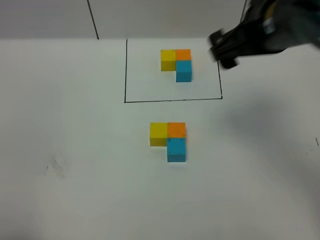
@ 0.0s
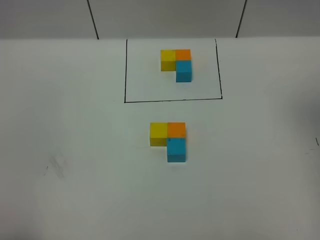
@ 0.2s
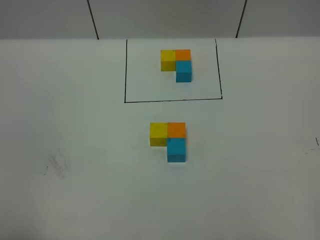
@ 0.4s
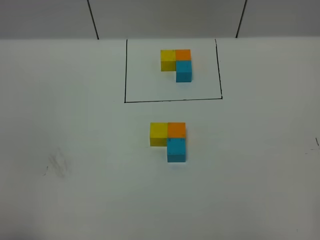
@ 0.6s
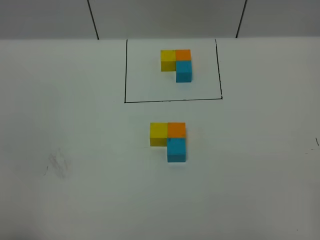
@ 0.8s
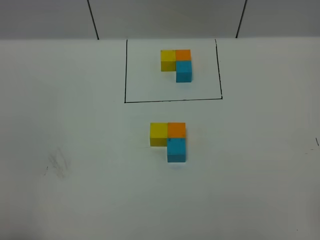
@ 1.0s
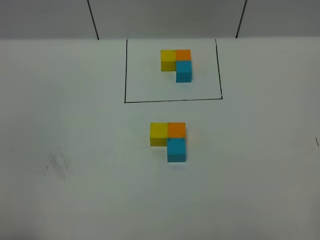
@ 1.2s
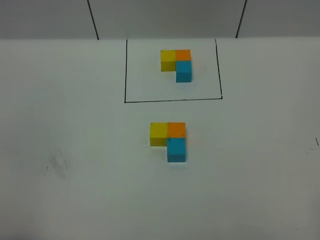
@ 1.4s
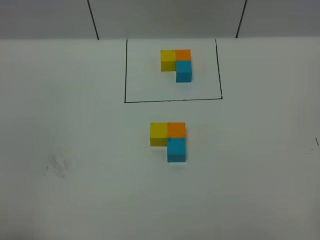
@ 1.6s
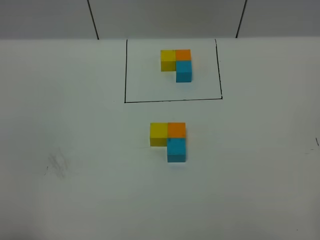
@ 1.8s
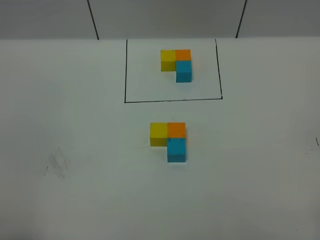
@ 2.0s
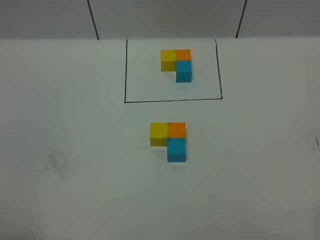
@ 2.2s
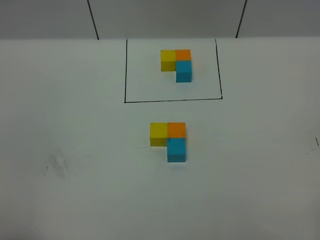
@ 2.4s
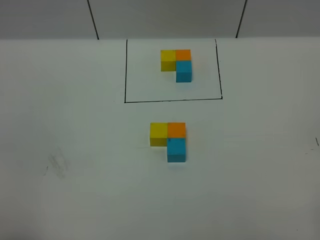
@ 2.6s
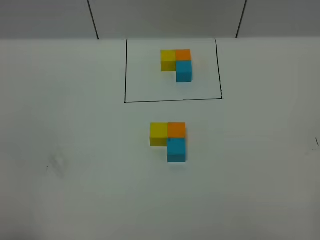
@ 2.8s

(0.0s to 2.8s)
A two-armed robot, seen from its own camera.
Task of the whole recording: According to the building block template in front, assemble the scattered blocks together.
0.0s - 1.4s: The right gripper shifts approximately 35 cm backward and to the right.

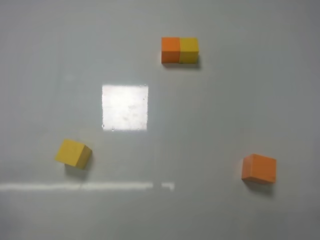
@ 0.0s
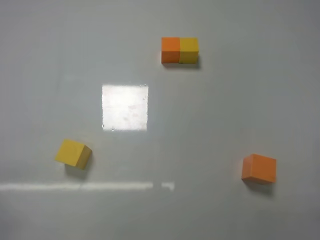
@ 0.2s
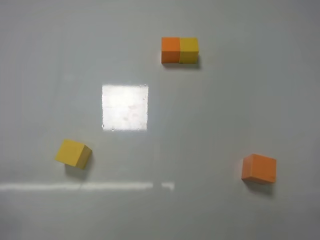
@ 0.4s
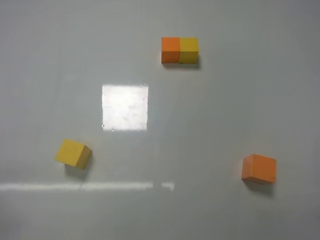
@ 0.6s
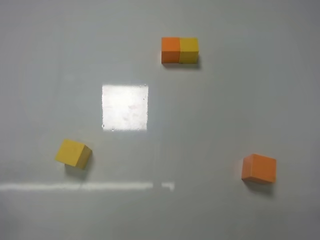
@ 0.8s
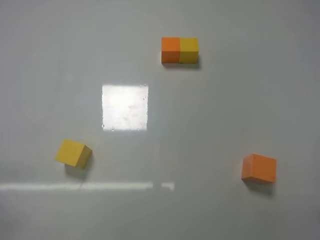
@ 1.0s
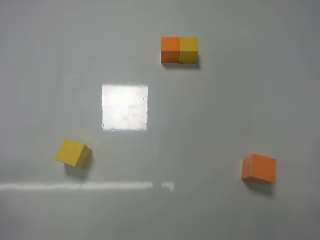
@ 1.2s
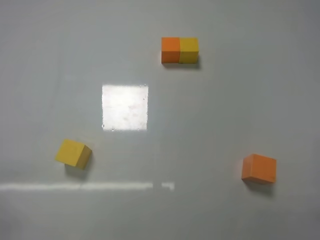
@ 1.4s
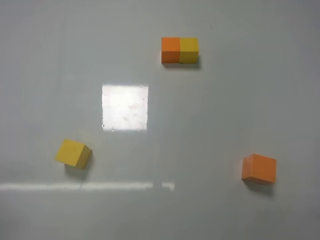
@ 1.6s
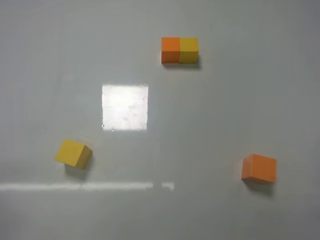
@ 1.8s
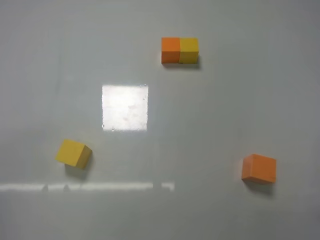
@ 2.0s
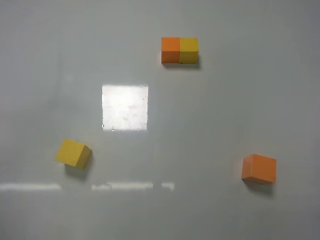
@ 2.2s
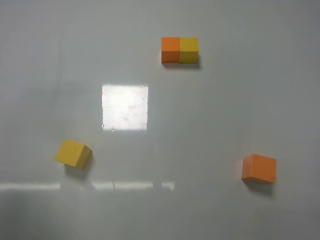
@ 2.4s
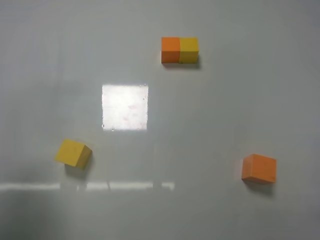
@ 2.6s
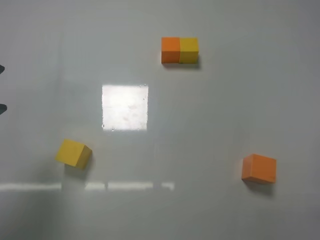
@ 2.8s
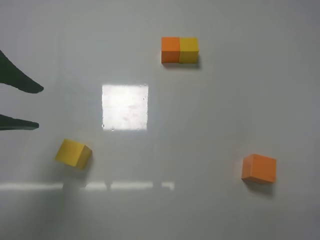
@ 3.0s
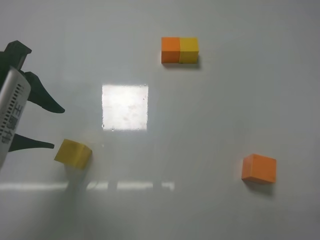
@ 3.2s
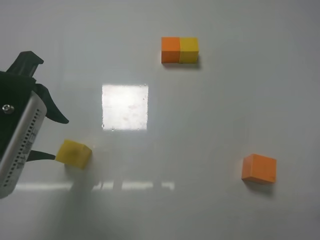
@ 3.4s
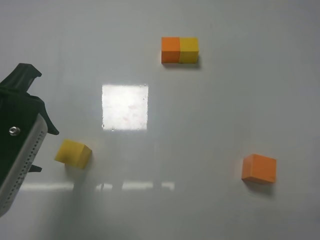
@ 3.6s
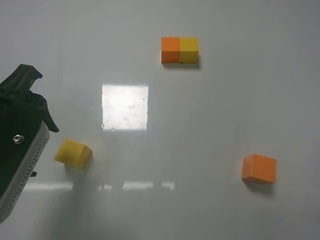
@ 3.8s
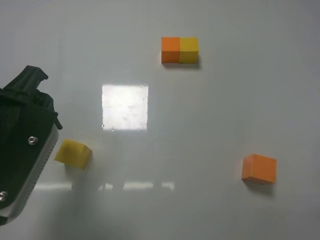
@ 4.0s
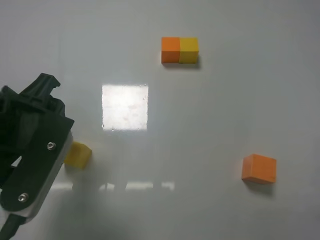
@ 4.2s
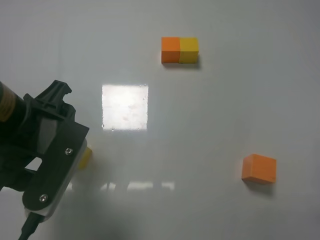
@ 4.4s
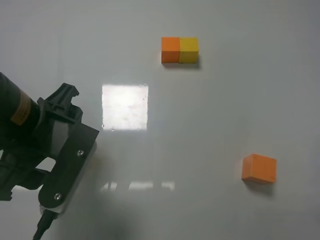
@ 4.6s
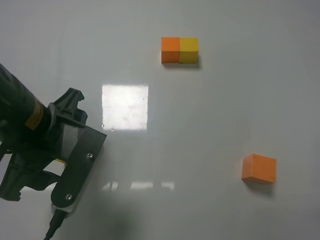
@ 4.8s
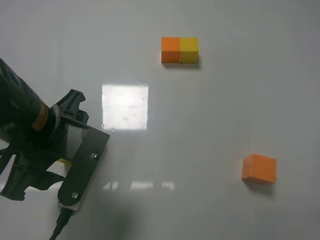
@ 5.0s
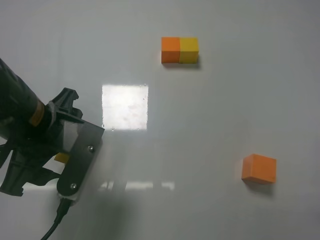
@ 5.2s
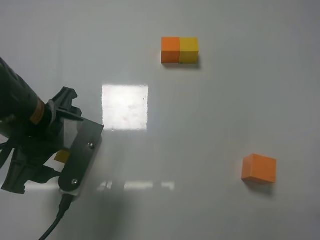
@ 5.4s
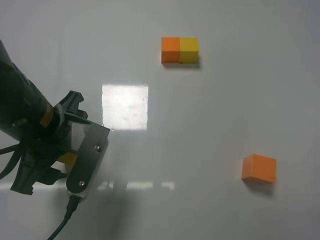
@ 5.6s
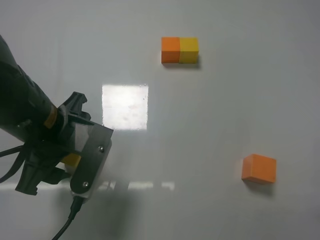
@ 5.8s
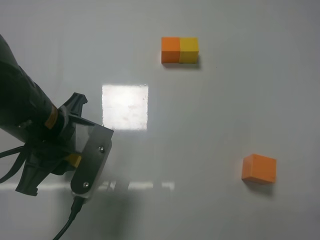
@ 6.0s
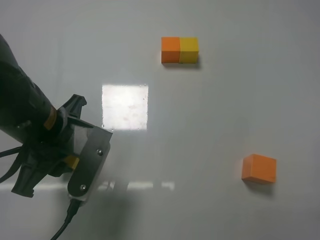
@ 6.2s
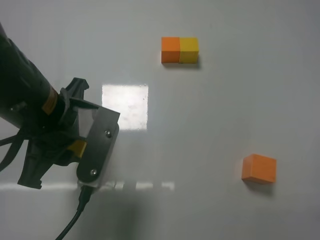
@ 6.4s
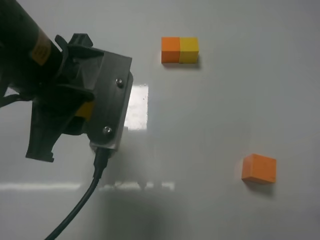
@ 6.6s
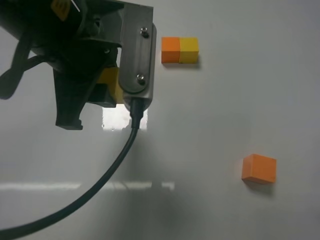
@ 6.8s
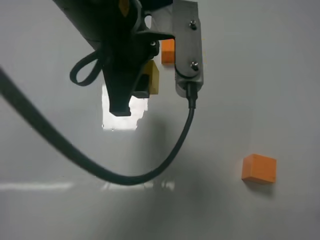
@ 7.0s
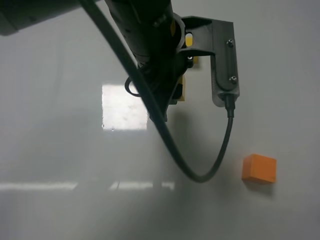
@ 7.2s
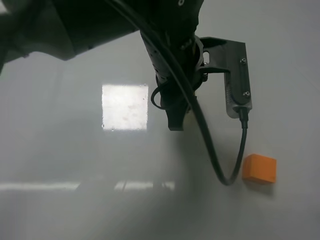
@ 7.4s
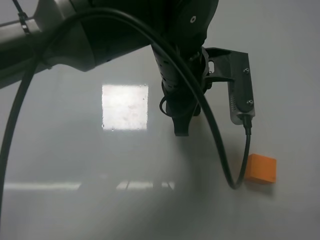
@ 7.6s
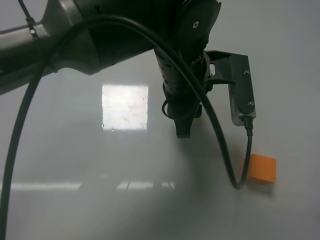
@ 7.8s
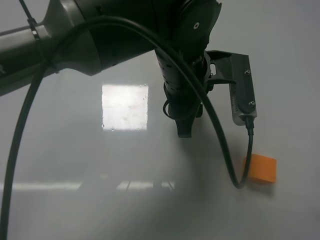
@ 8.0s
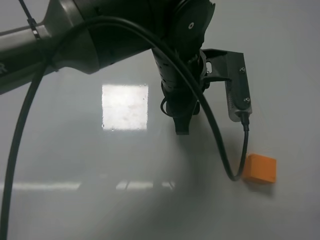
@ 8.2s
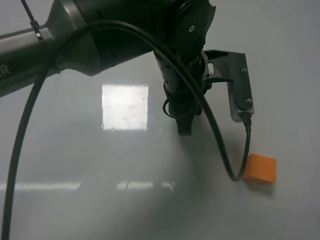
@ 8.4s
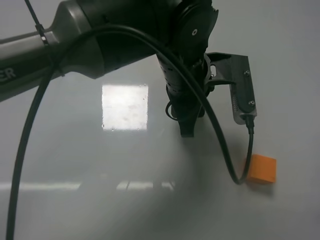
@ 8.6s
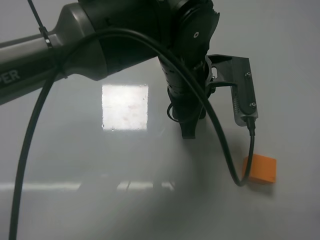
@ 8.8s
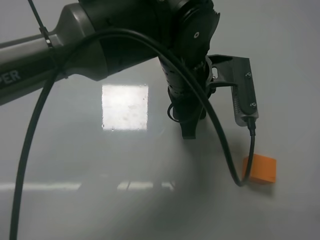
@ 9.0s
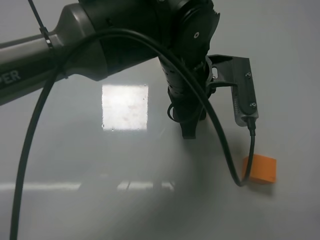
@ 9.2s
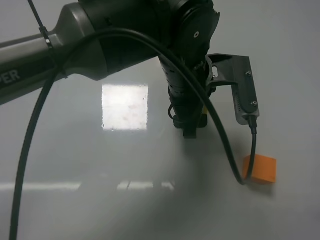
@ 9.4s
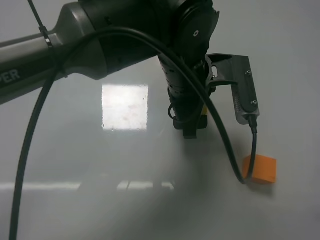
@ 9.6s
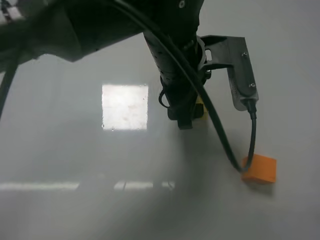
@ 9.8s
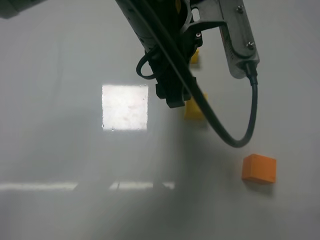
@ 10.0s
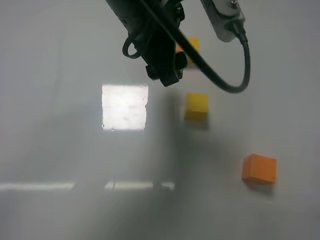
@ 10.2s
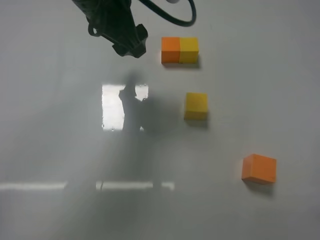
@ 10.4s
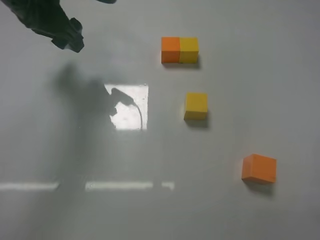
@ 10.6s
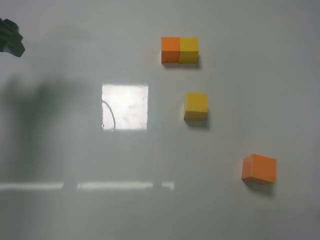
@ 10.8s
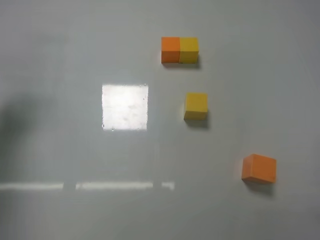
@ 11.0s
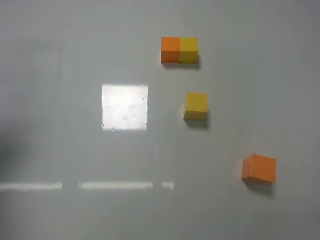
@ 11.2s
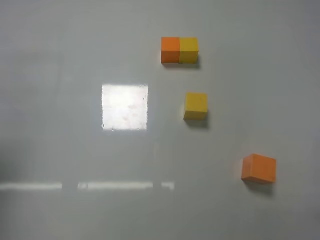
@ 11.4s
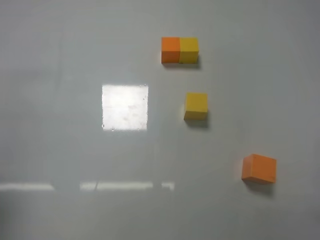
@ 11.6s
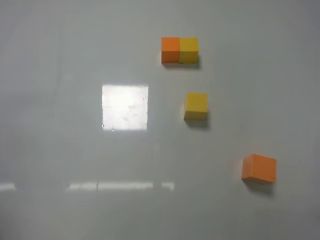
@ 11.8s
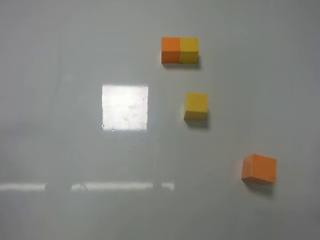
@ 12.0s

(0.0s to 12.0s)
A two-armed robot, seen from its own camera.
Task of the whole recording: According to the building block template in front, assemble the scattered blocks together.
Step, 0.0s - 6.0s: Grasp the yellow block with left gripper.
Step, 6.2s - 9.8s: Adjust the position of the cube with the left gripper.
0.0s - 1.6s: Both grippers stay put.
1.6s - 3.0s: The left gripper heads forward, upward and to the right, covering roughly 25 cm.
3.0s - 4.4s: The left gripper travels to the right and downward by approximately 10 cm, and opens.
4.4s - 6.0s: The left gripper changes place by some 5 cm, and closes its fingers.
6.0s - 7.6s: The left gripper heads to the right, covering roughly 20 cm.
7.6s - 9.0s: The grippers make only small movements.
9.0s - 10.4s: The left gripper travels to the left and upward by some 20 cm, and opens.
10.4s - 12.0s: The left gripper moves backward, to the left and downward, roughly 40 cm.

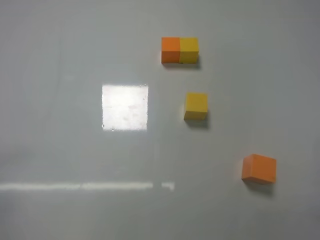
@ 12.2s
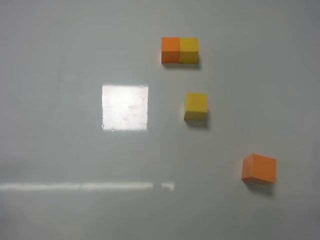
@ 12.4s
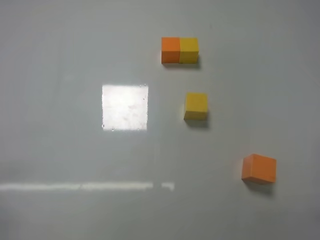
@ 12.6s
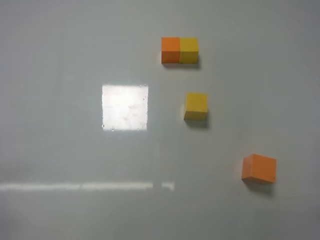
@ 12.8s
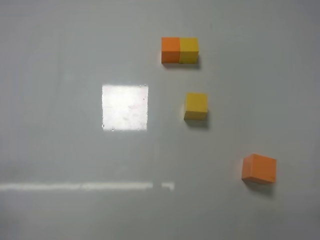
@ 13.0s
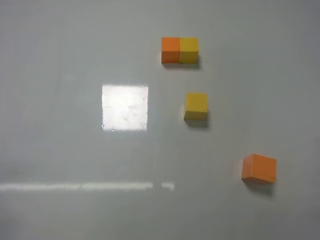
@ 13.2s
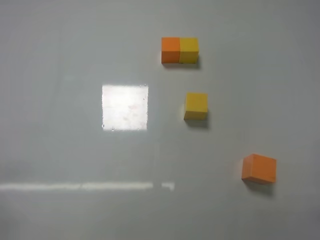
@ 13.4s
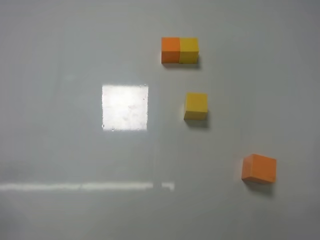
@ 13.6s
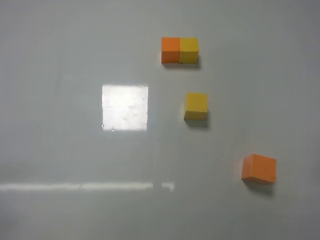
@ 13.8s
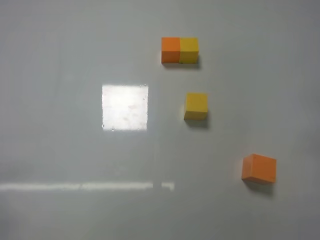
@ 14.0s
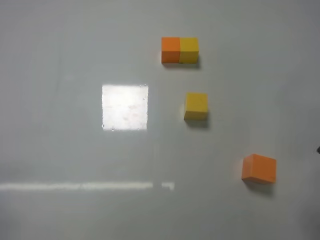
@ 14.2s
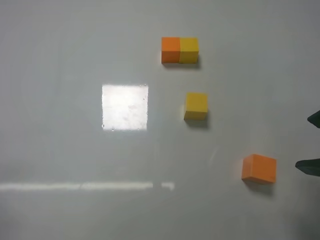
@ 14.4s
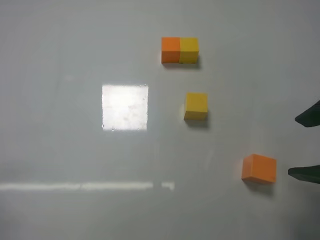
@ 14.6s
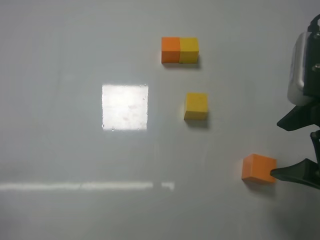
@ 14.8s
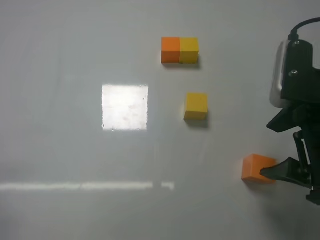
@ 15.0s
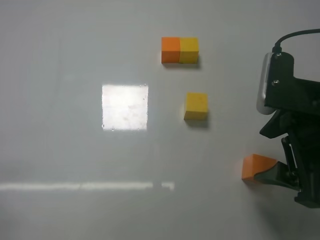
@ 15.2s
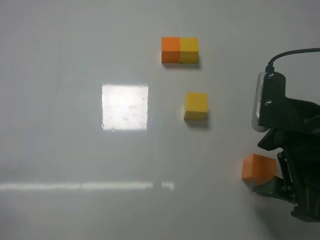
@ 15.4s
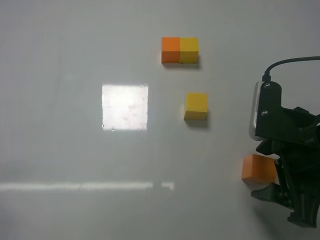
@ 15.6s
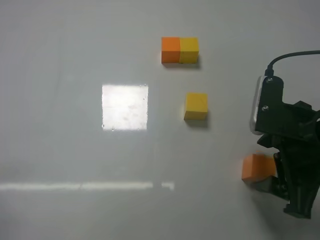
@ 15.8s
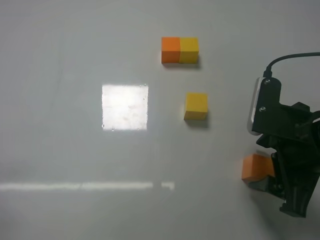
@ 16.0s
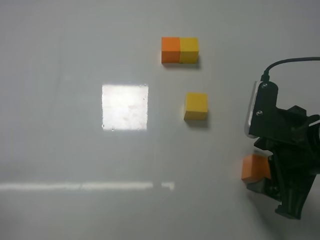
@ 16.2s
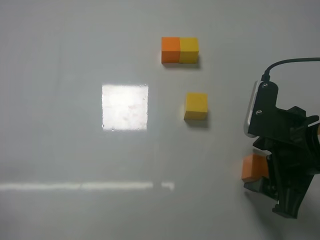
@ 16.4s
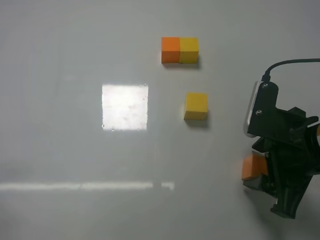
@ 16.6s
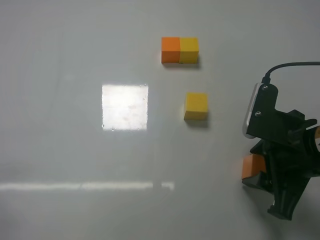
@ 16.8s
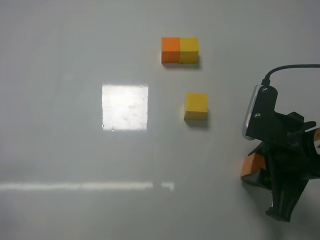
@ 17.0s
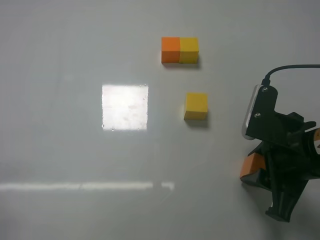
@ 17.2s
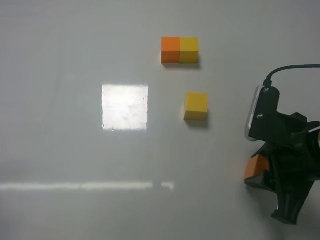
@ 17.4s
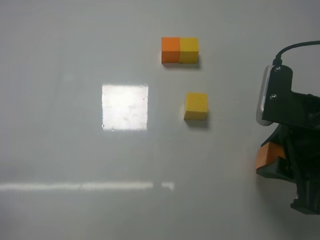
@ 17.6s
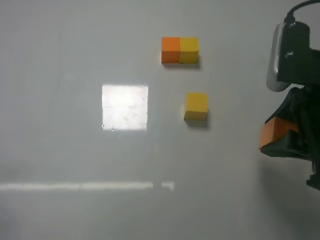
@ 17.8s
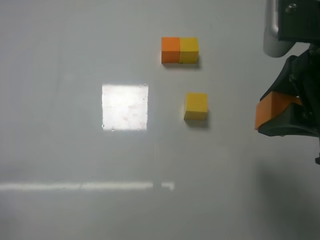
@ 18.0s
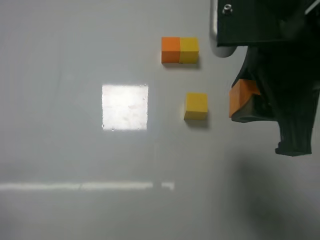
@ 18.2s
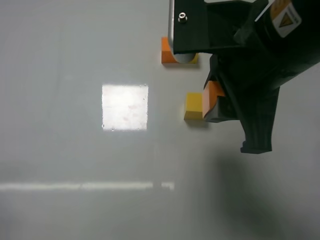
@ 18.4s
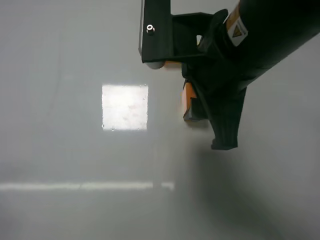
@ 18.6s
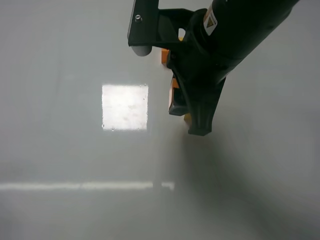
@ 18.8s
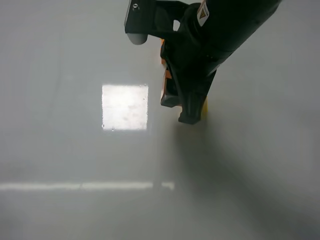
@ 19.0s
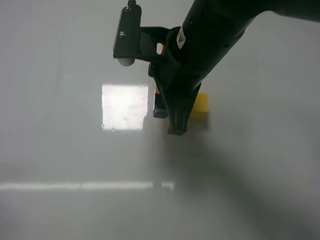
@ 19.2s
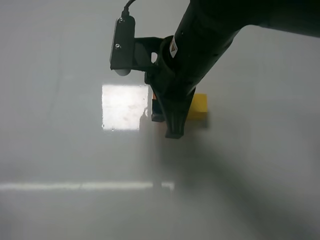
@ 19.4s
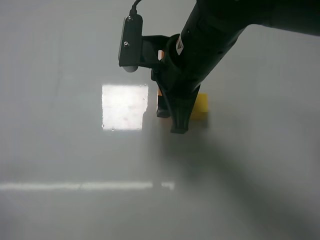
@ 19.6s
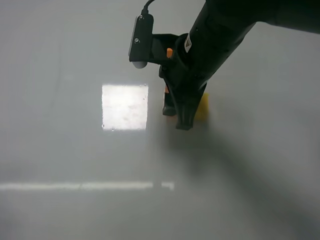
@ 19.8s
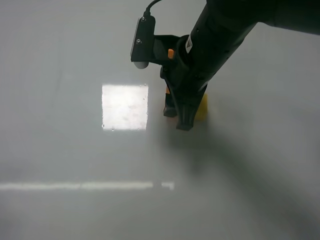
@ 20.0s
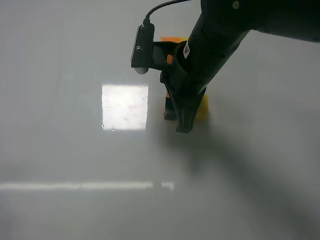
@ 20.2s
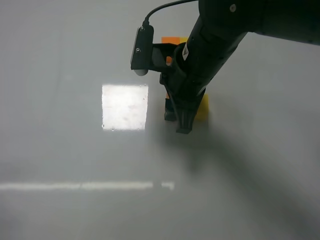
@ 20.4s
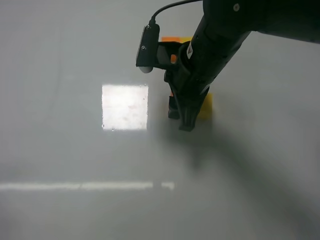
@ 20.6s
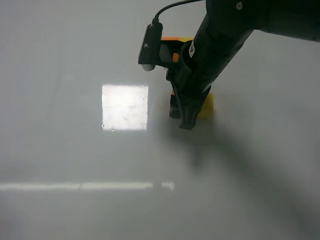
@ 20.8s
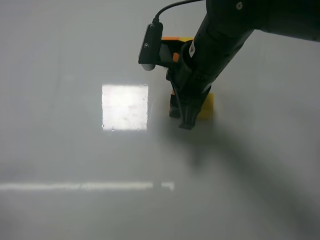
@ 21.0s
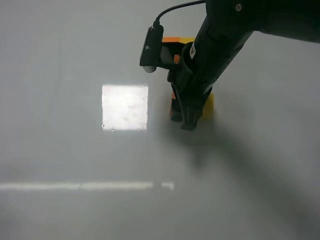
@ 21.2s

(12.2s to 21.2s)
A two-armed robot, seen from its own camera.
Task of the whole recording: According to the building block template in front, assemble the scattered blocks together.
Step, 12.2s - 17.0s: Grasp the orange block with right gripper.
13.8s - 15.2s: The right gripper goes roughly 20 cm forward and to the left, and opens its fingers.
15.2s - 16.6s: The grippers make only small movements.
16.6s - 18.2s: The right gripper shifts some 15 cm upward and to the left, and closes.
18.2s - 19.8s: The right gripper heads forward and to the left, covering some 15 cm.
19.8s - 21.2s: The right gripper opens up.
